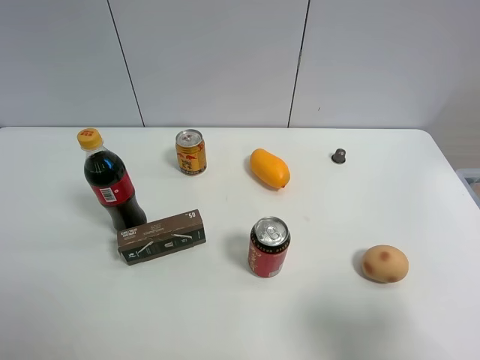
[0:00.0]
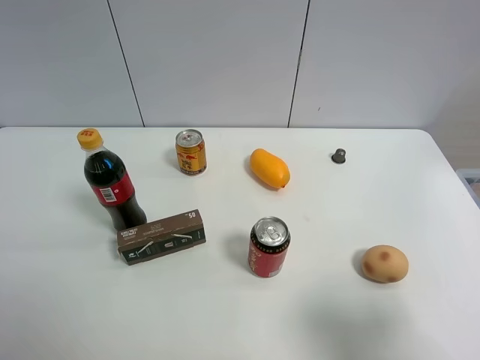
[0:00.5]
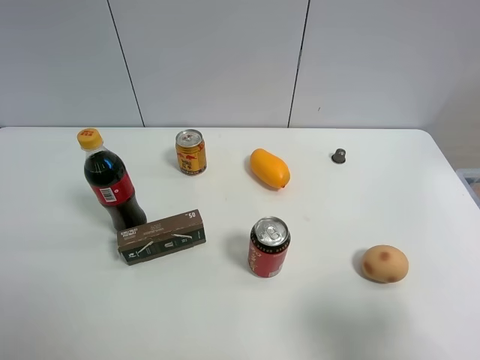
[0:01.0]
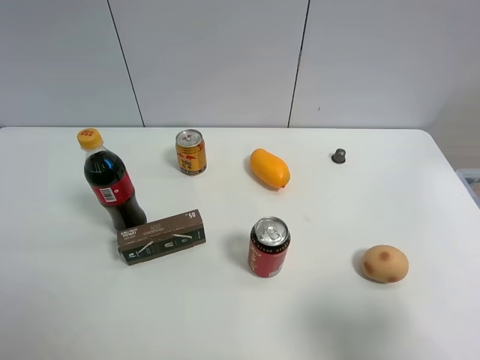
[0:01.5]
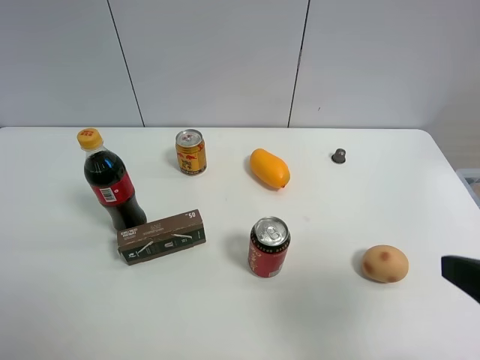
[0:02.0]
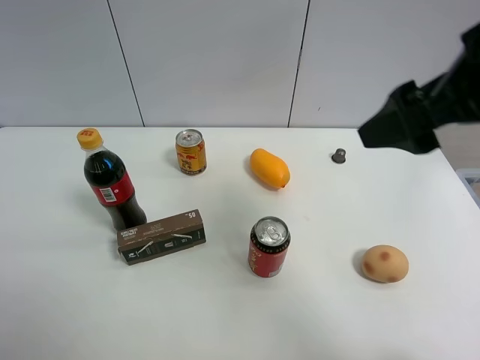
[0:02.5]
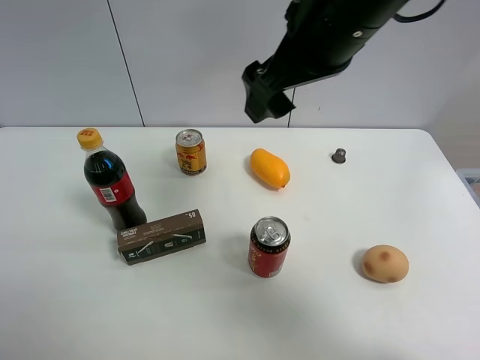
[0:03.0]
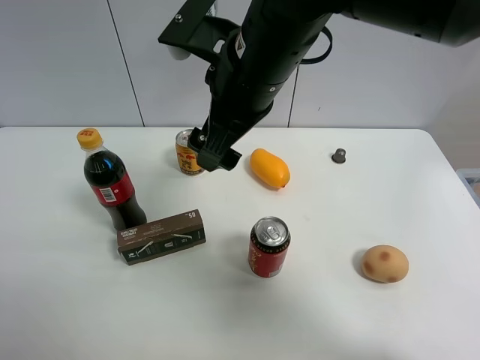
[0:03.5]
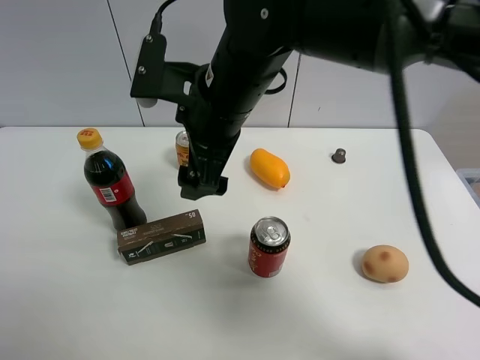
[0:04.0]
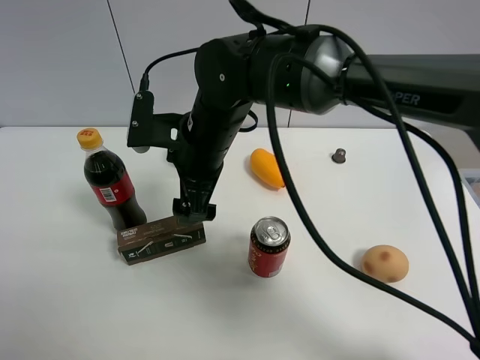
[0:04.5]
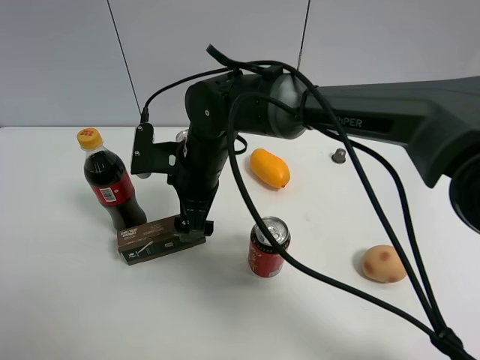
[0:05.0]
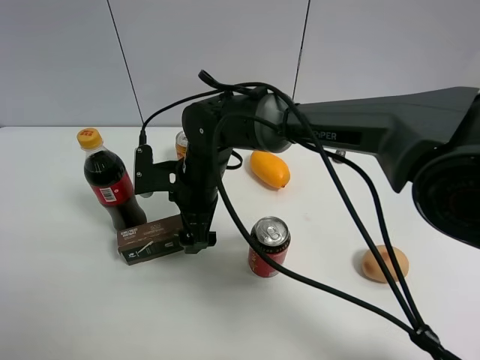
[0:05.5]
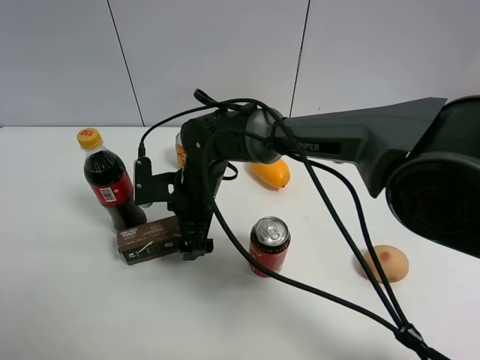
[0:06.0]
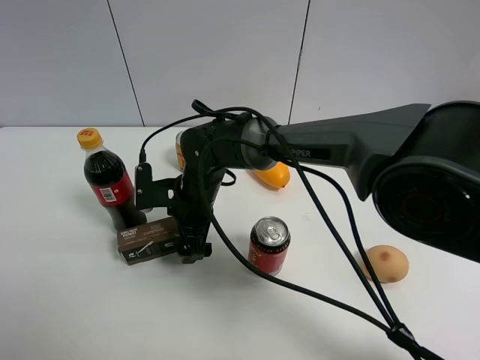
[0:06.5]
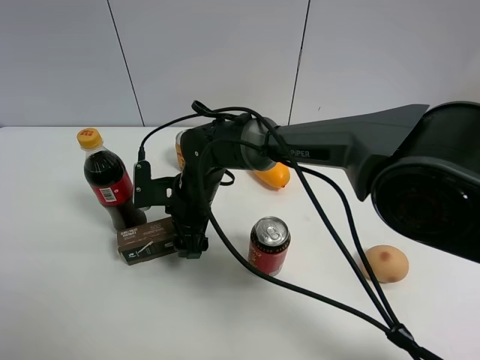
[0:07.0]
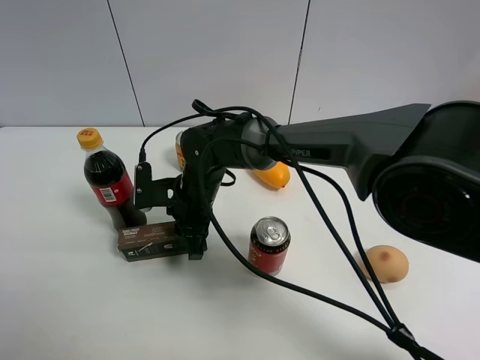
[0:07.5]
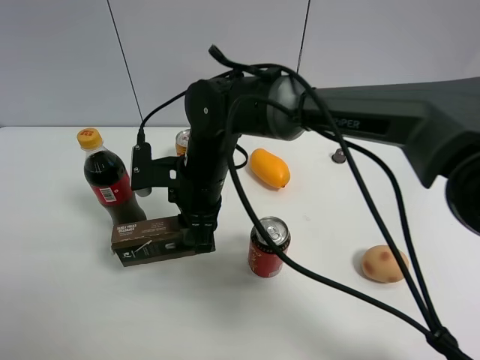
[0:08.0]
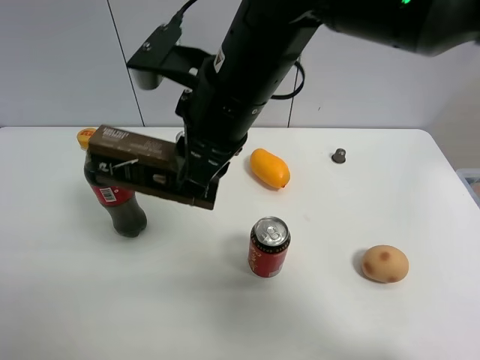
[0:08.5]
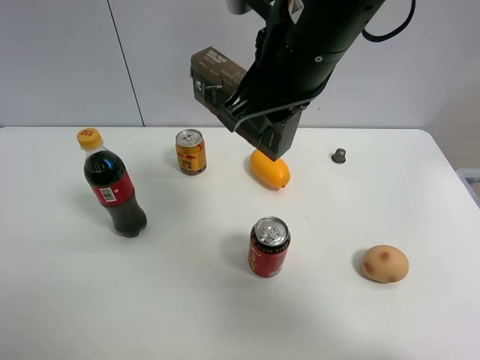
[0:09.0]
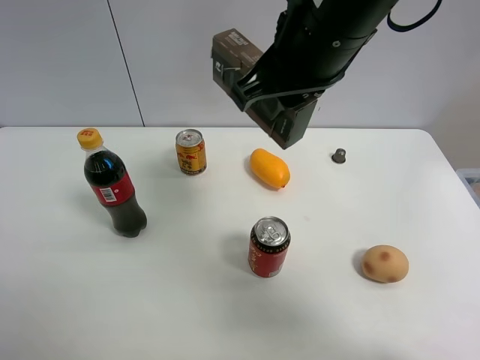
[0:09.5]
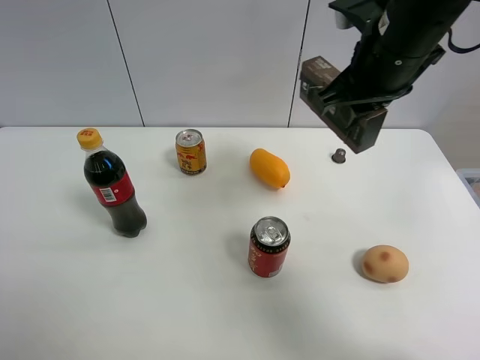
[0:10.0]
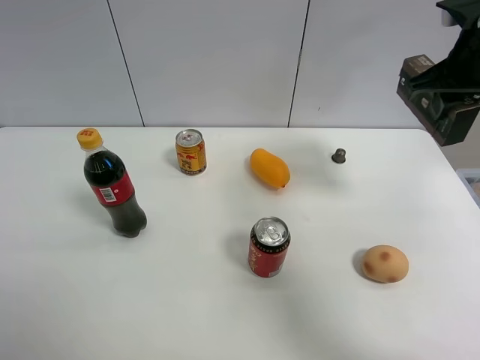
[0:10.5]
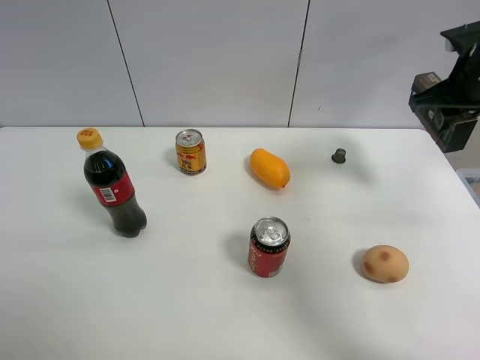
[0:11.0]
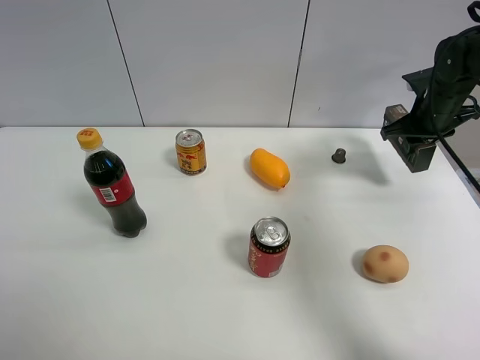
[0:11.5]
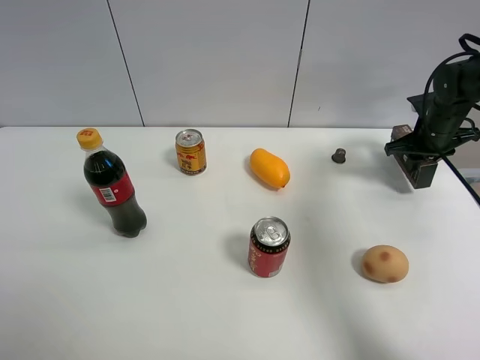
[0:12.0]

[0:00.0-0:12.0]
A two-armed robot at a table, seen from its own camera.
Task of the whole recording: the gripper move the object.
Step, 0:00.0 to 0:07.0: Grasp the Luckin Coffee box with the right gripper.
0:00.0 to 0:02.0: The right gripper heads forward, covering some 5 cm.
0:02.0 to 0:04.0: The right gripper is displaced to the left and forward by roughly 35 cm.
0:04.0 to 0:06.0: The right gripper travels downward by roughly 15 cm.
0:06.0 to 0:08.0: The right gripper is displaced upward by approximately 5 cm, and closes.
0:08.0 to 0:10.0: The right gripper travels to the right and upward by roughly 25 cm.
0:10.0 to 0:12.0: The right gripper shifts some 30 cm to the right, downward and forward.

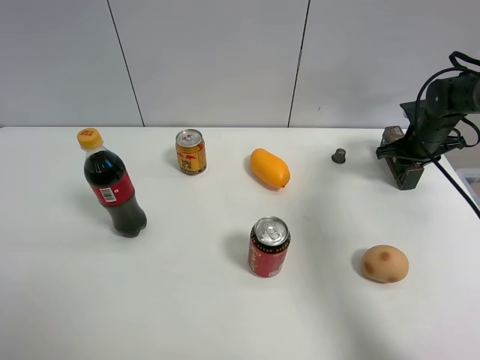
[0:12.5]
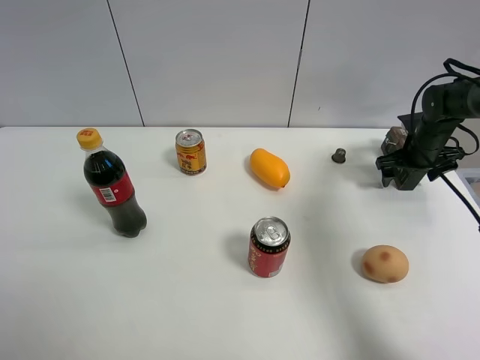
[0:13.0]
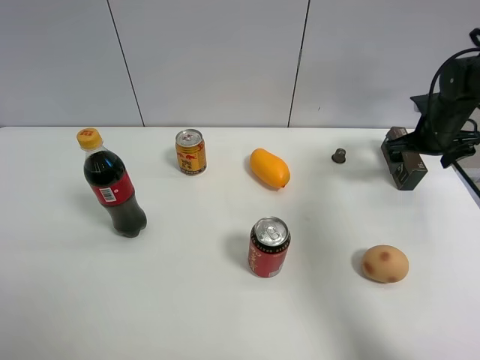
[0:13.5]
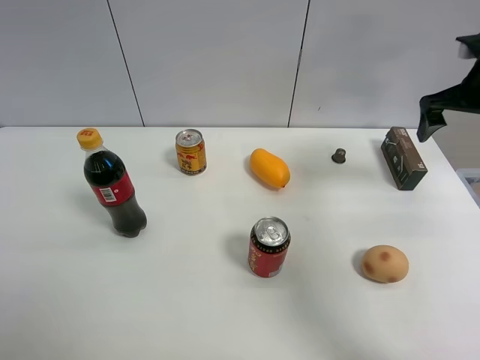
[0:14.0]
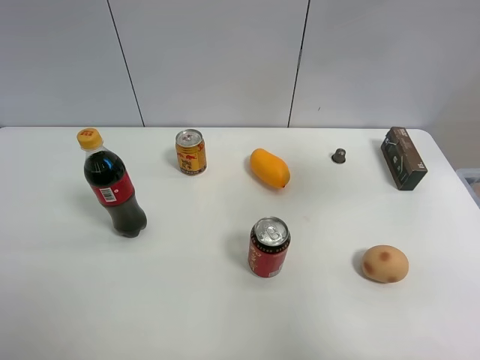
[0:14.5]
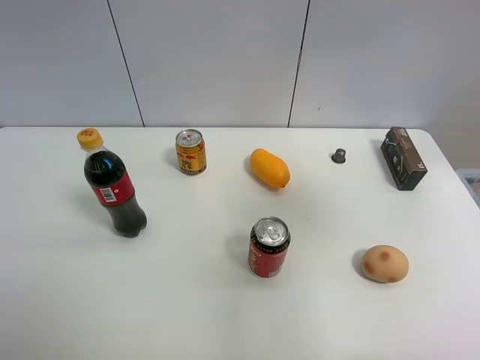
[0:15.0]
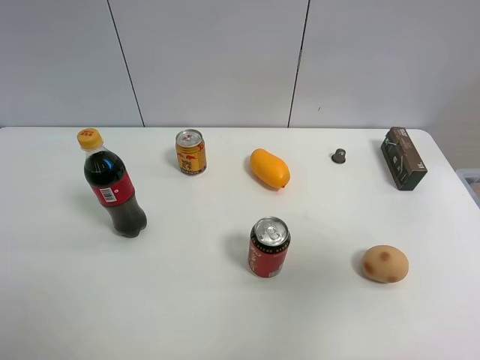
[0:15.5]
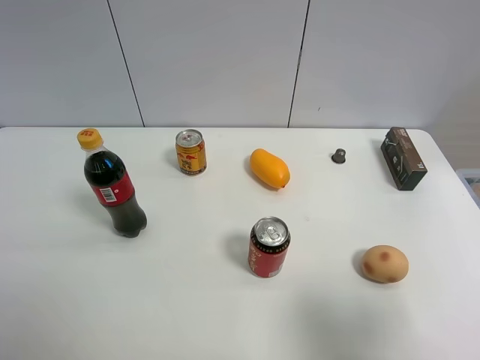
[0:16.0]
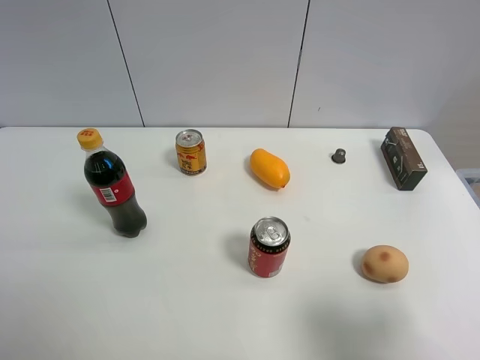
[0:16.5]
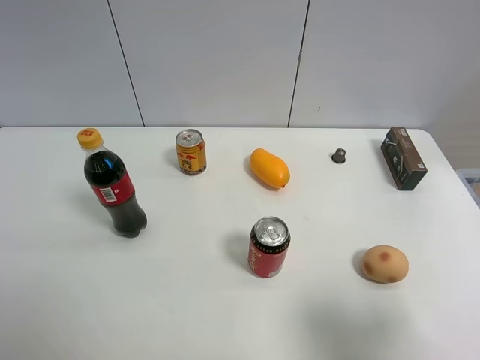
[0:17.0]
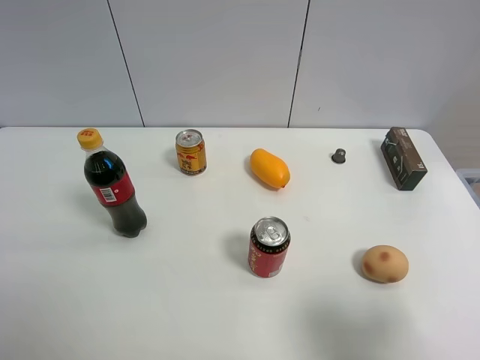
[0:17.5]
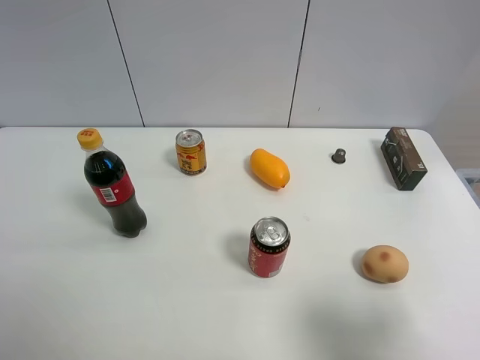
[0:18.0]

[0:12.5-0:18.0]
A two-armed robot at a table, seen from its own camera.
Task of the whole recording: the gripper move the object.
0:12.5 to 0:14.5: The right gripper shifts approximately 35 cm upward and backward, and opens up.
0:14.5 to 0:16.0: The right gripper heads backward and downward, covering approximately 30 cm.

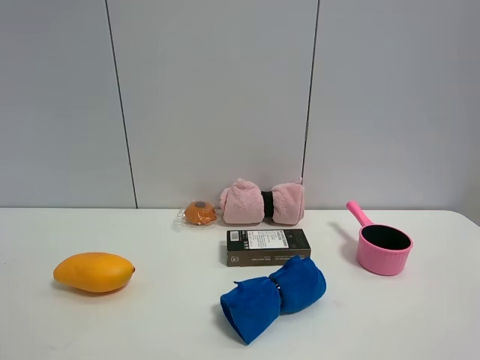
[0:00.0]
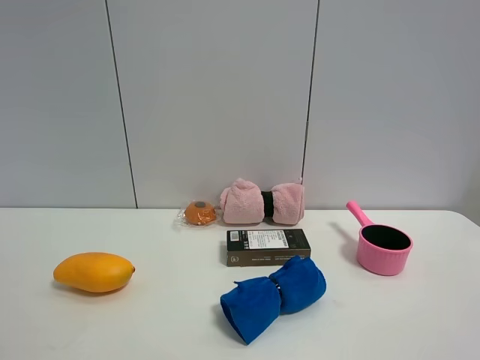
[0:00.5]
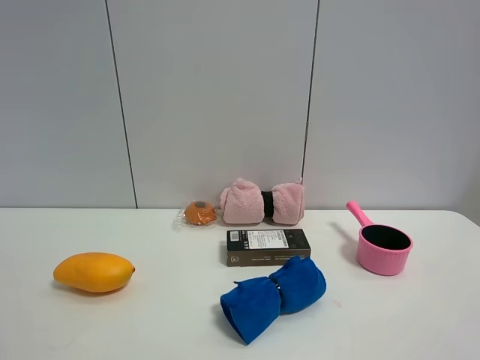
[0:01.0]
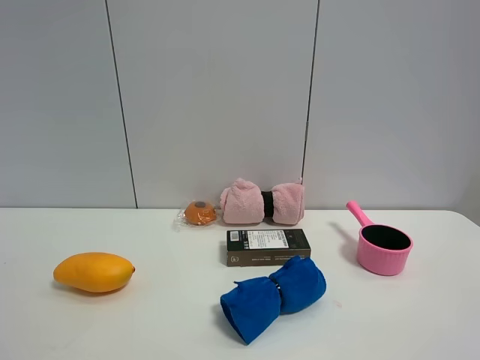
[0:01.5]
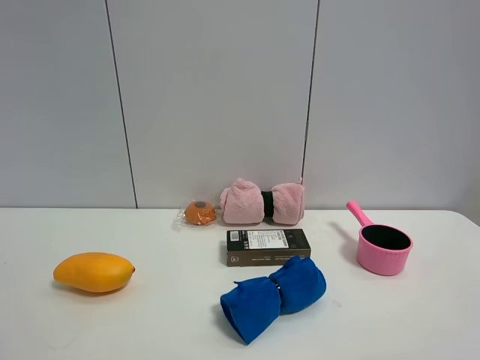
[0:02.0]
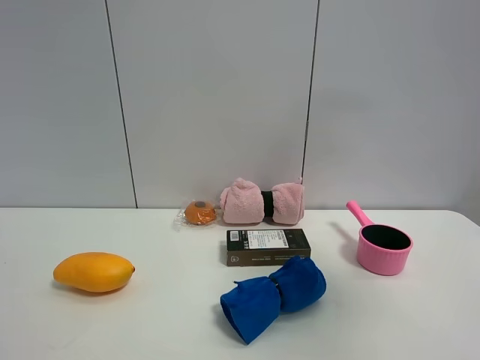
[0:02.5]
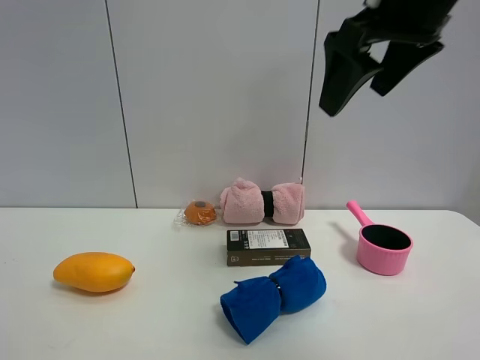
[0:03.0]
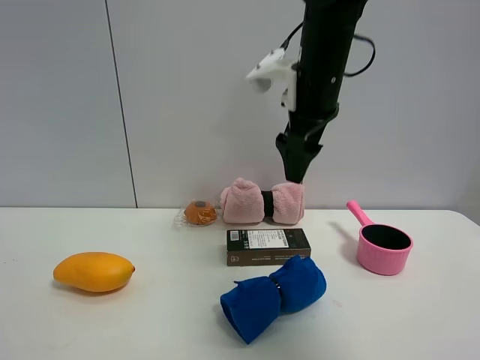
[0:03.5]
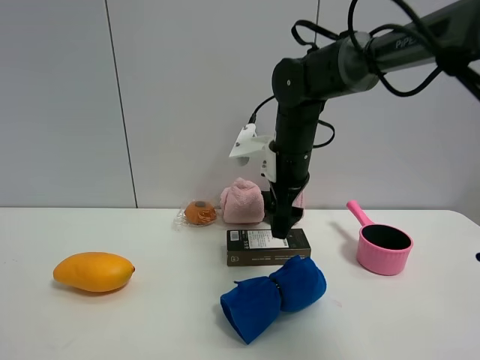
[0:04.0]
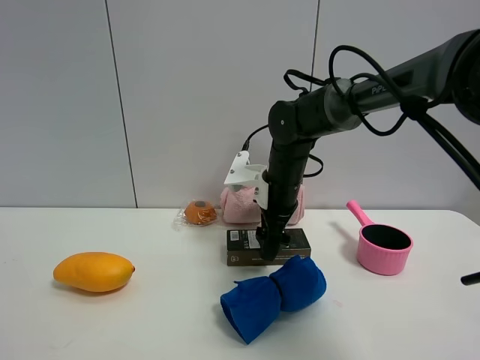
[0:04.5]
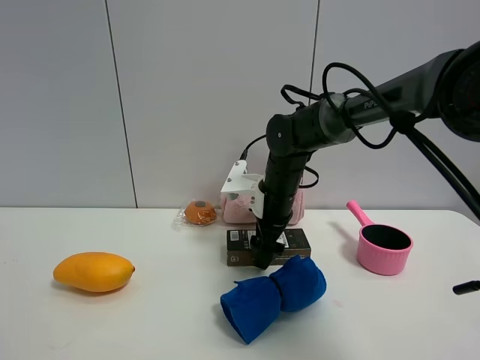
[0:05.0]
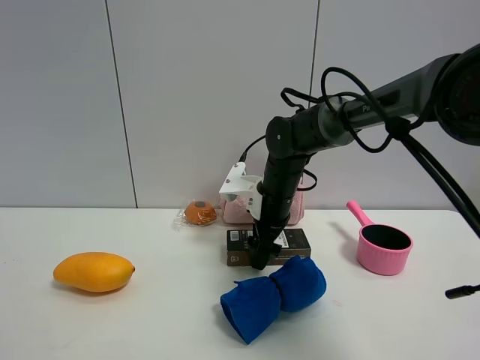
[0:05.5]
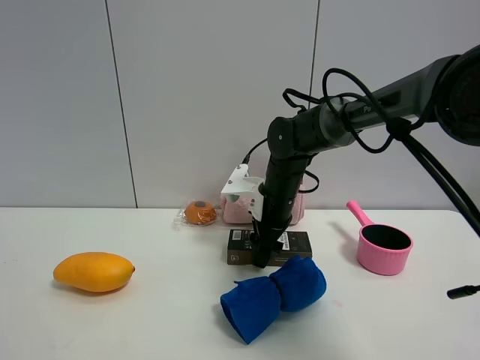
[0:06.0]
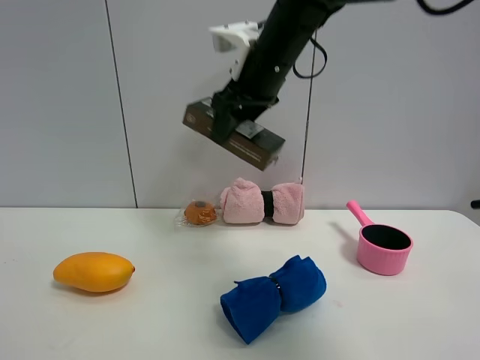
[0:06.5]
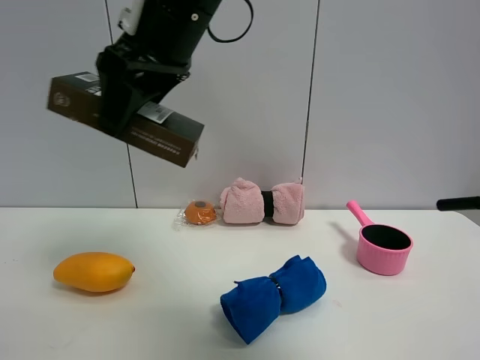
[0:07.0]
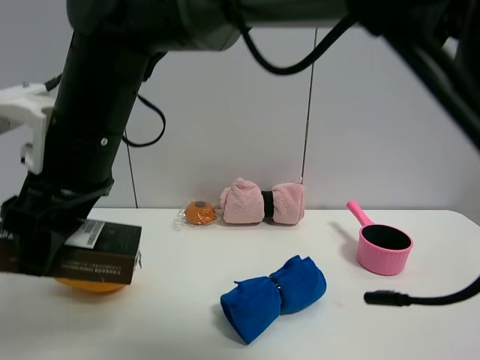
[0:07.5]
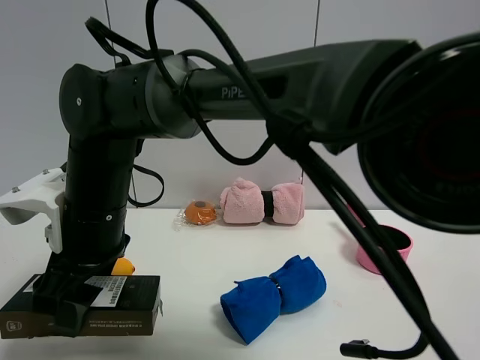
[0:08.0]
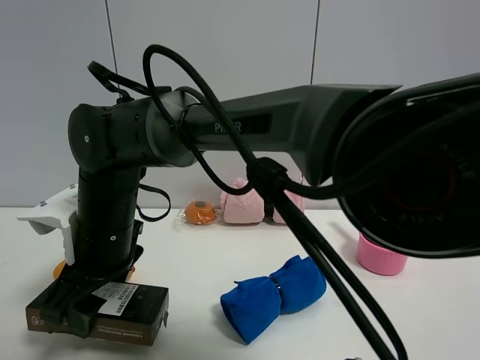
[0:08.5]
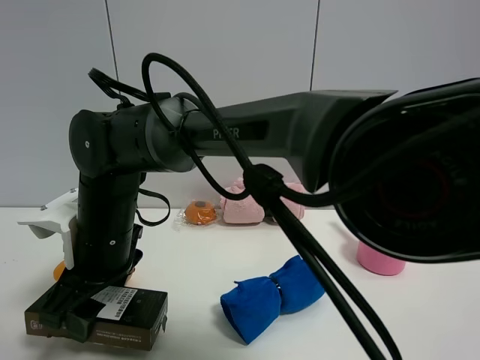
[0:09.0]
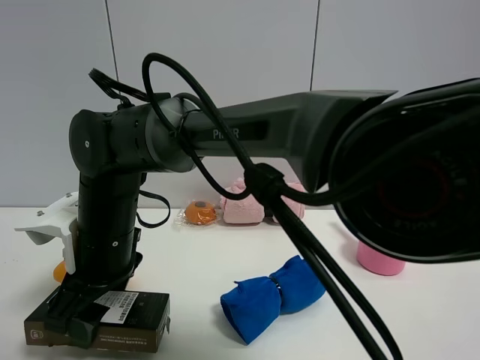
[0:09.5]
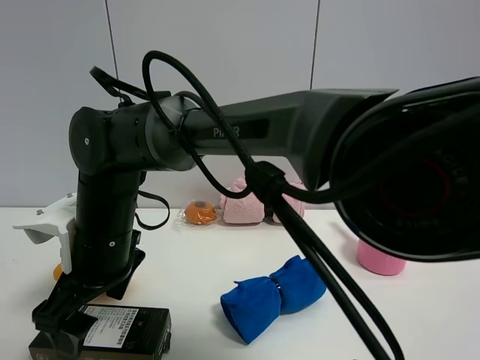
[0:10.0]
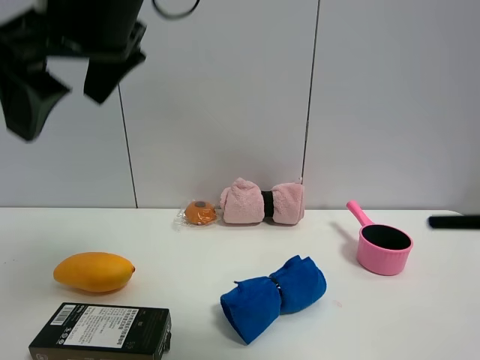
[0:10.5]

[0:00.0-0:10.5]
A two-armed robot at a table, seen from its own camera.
Task of the whole recording: the gripper move the object.
Step, 0:00.0 to 0:06.0: Grasp the brown box with the right gripper.
Step, 0:06.5 to 0:10.0: Place the brown box on the table with the right gripper.
0:02.0 to 0:04.0: The right gripper goes roughly 50 cm forward and to the left.
0:04.0 to 0:06.5: The right gripper is displaced upward by approximately 15 cm, and closes up.
0:06.5 to 0:08.5: The right gripper heads downward, to the left and backward, covering approximately 30 cm.
0:08.5 to 0:10.5: The right gripper is displaced upward by some 25 cm, and opens.
